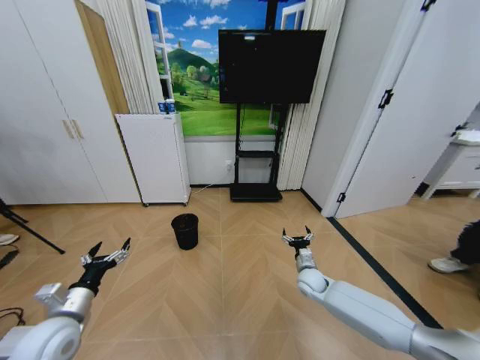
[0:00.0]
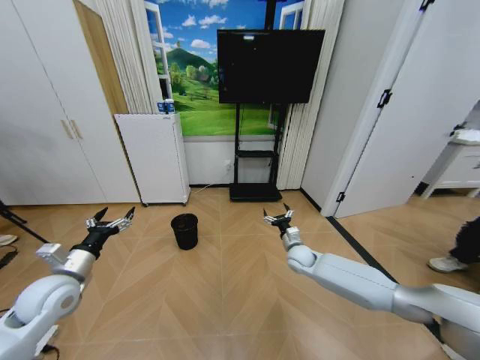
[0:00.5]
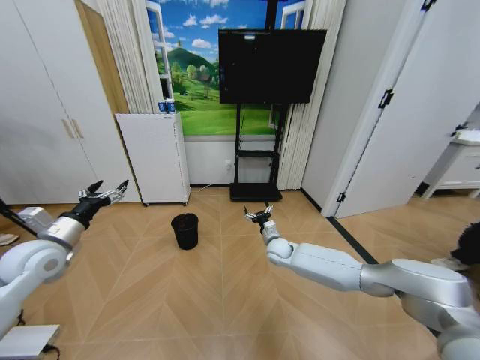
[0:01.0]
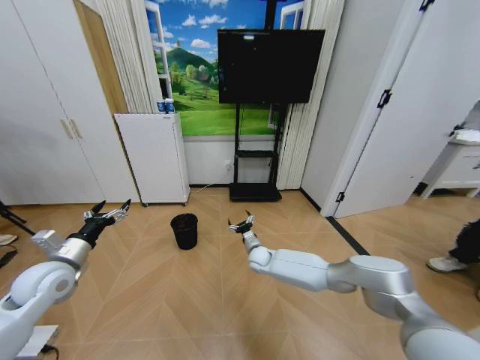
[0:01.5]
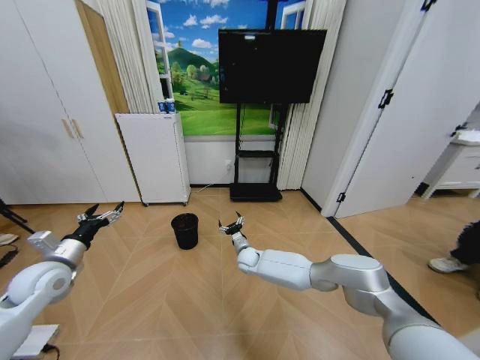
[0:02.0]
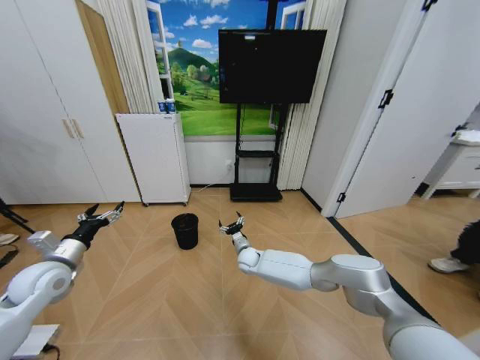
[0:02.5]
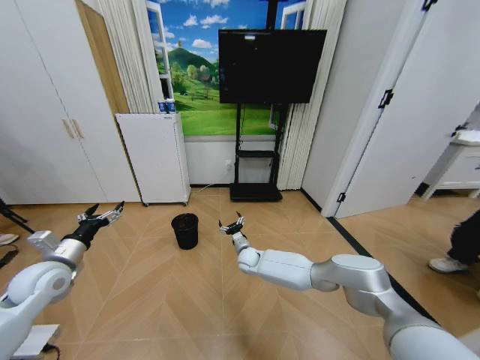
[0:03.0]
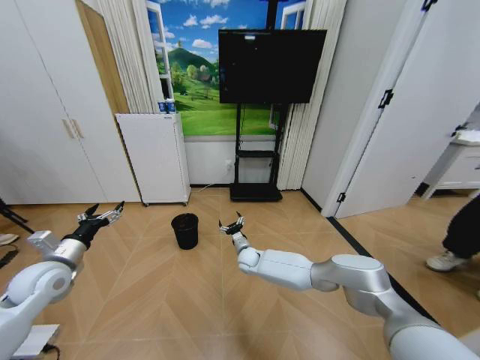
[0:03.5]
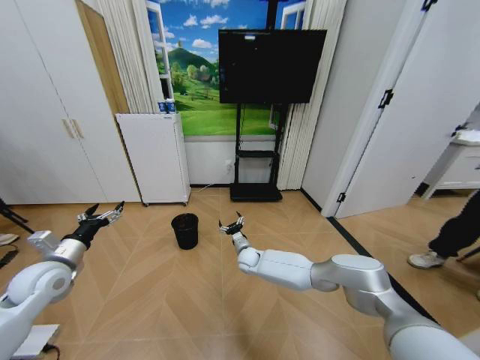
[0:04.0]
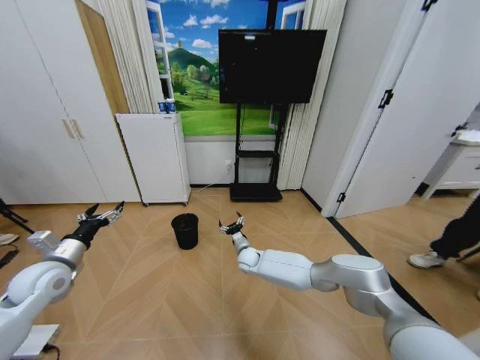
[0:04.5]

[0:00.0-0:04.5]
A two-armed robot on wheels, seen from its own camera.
Task of the whole recording: Pick up the trash bin and place the garbage on the floor into it.
0:00.0 to 0:02.0: The left gripper heads forward, upward and to the left, covering approximately 15 cm; the right gripper shifts roughly 25 cm to the left and forward.
0:02.0 to 0:04.5: The two grippers keep their place.

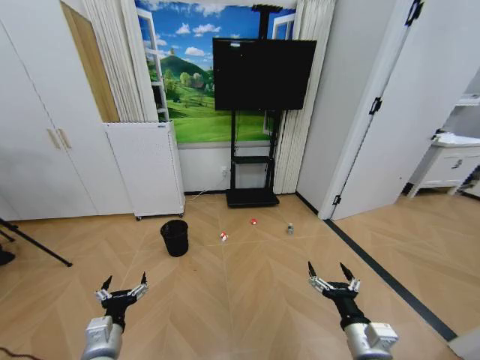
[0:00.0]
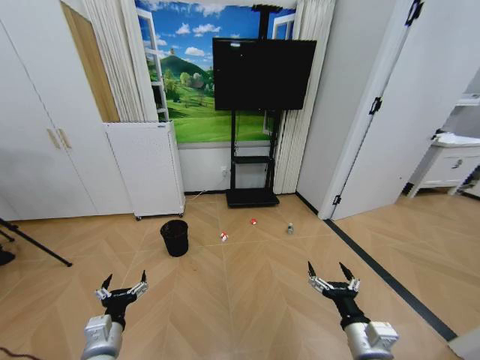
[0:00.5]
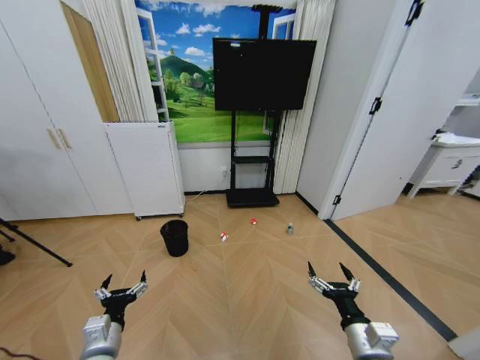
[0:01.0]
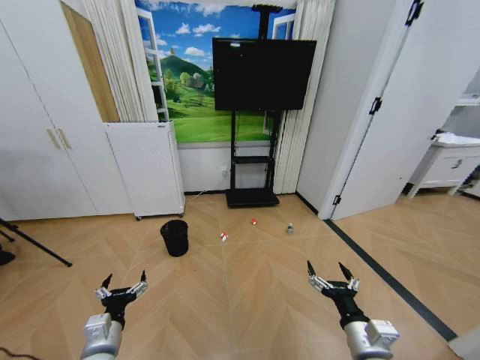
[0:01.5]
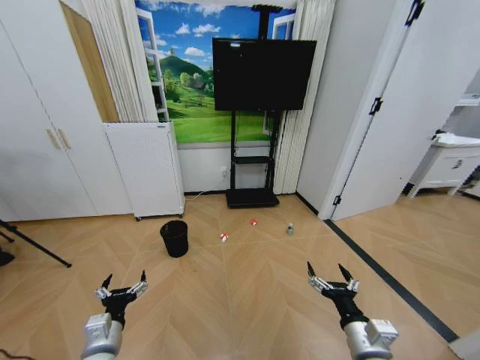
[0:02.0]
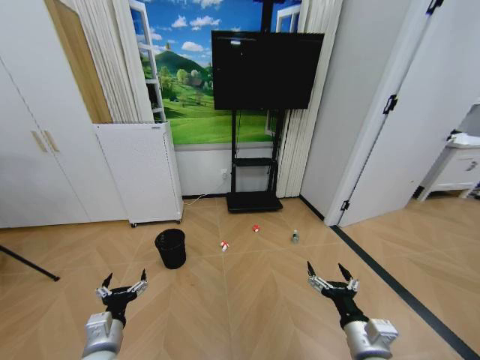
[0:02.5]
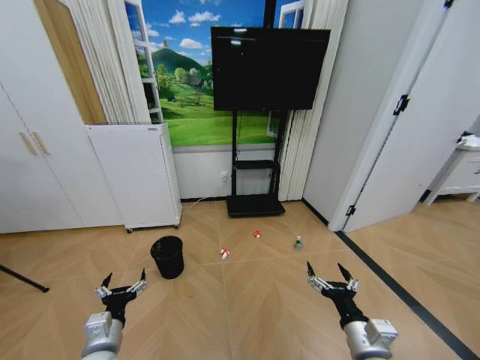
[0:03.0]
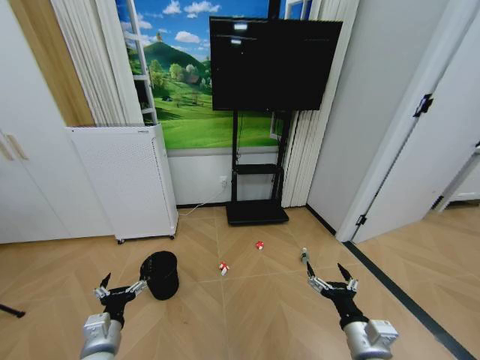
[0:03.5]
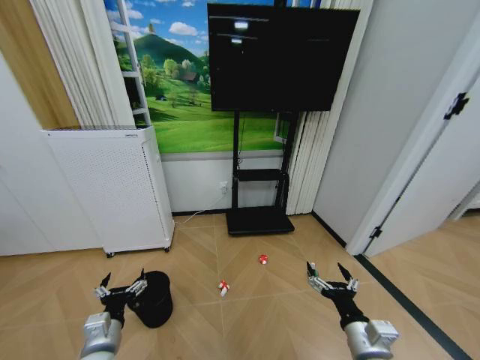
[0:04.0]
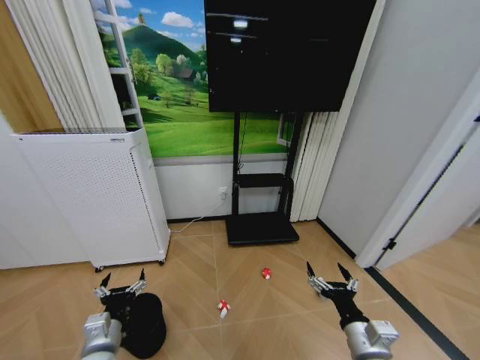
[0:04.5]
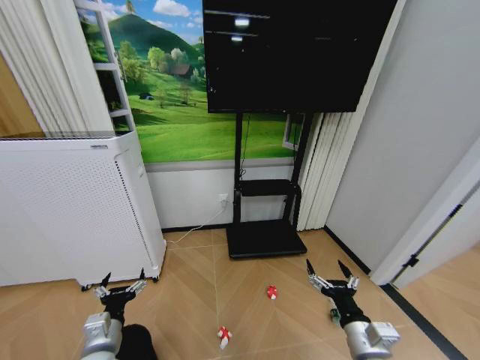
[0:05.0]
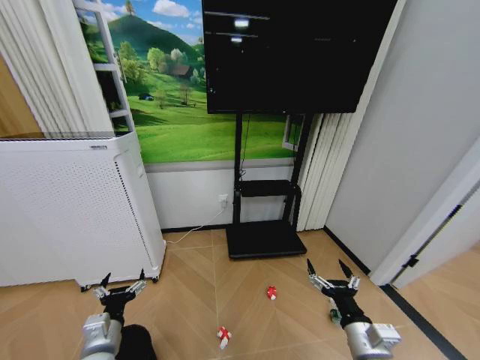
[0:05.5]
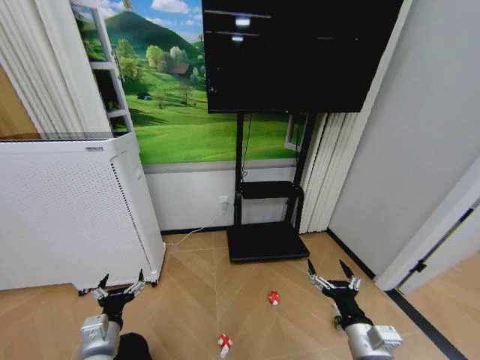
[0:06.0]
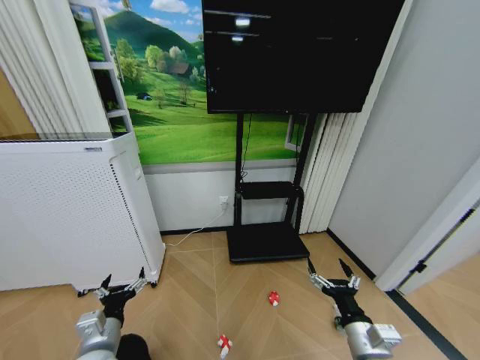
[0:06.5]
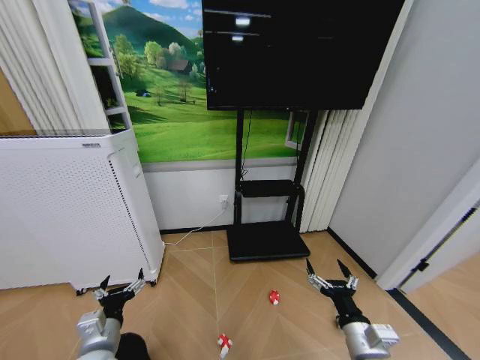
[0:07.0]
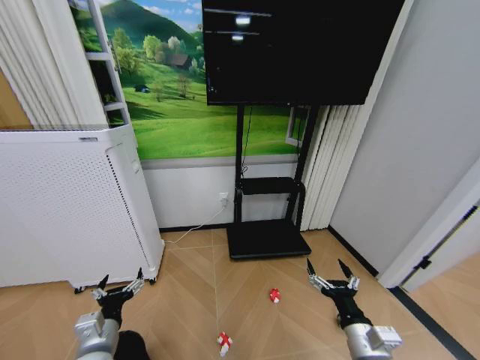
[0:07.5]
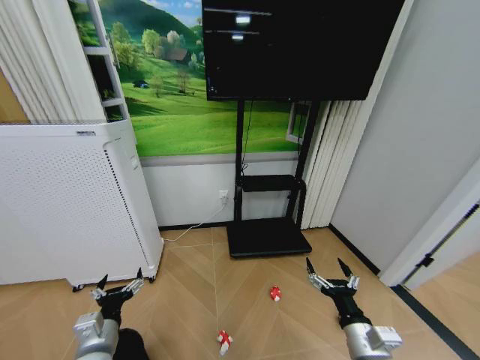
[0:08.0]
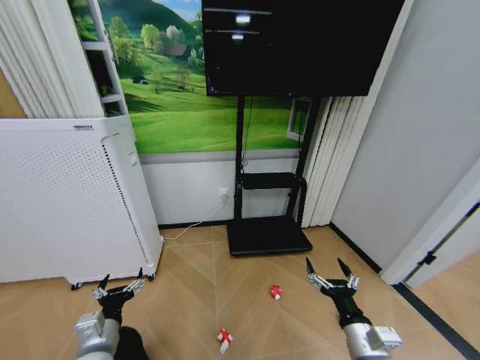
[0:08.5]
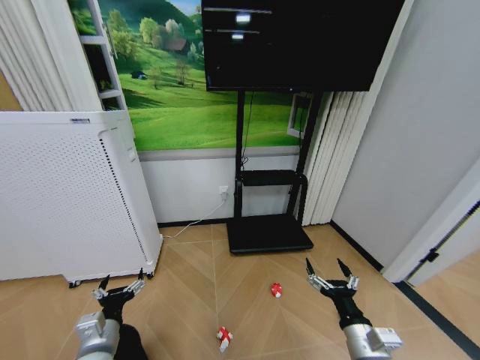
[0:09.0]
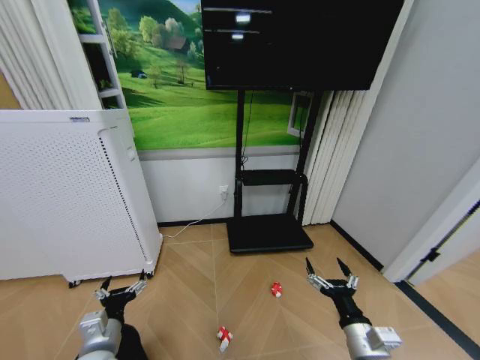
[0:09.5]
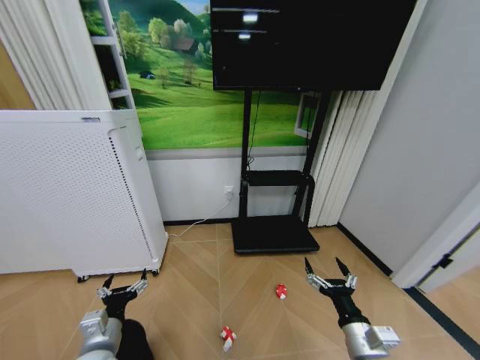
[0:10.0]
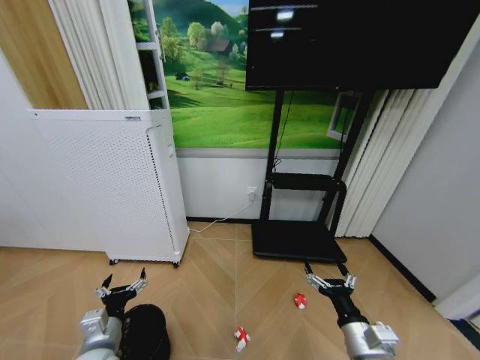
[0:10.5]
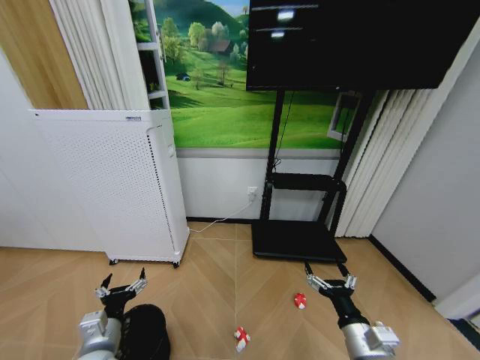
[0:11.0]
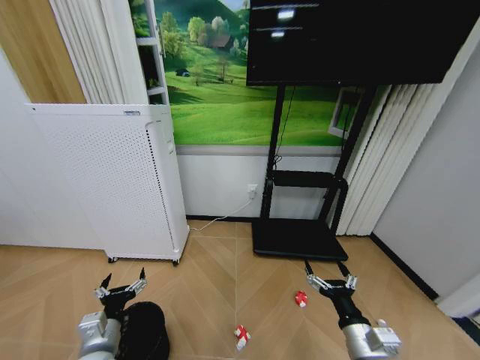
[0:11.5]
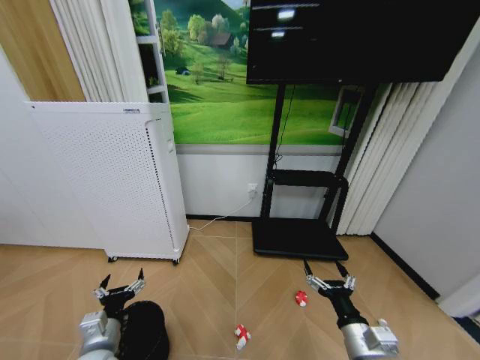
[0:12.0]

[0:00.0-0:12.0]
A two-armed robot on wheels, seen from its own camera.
Task of the whole recording: Pick up the trash bin and place the garbage on the floor into it.
0:06.0 to 0:08.0: The grippers stay close to where they were, moving slightly.

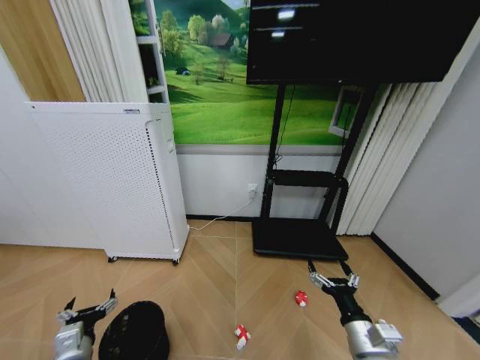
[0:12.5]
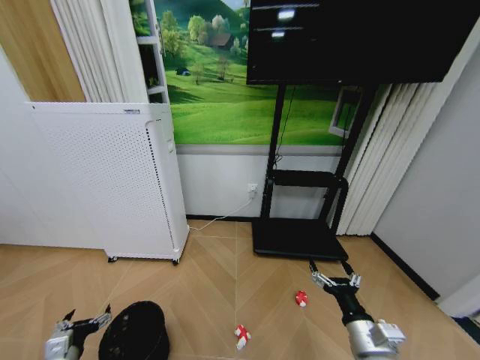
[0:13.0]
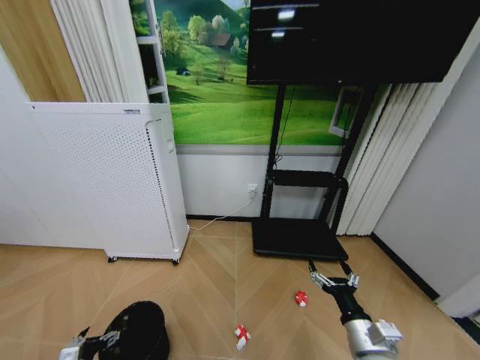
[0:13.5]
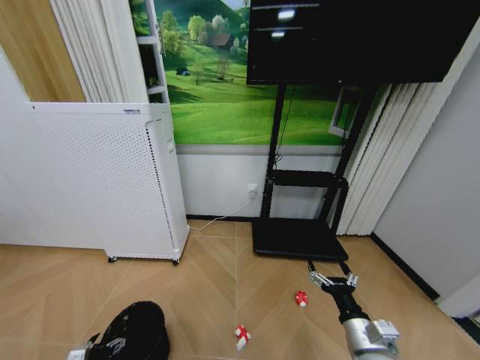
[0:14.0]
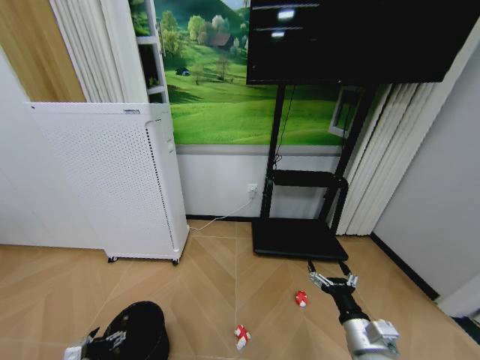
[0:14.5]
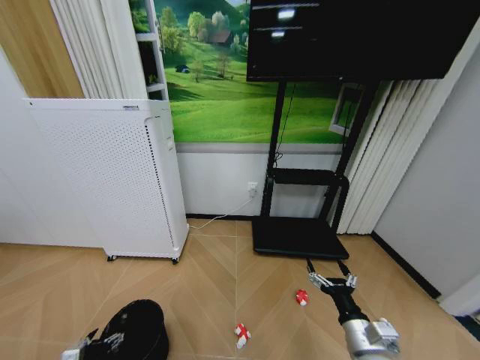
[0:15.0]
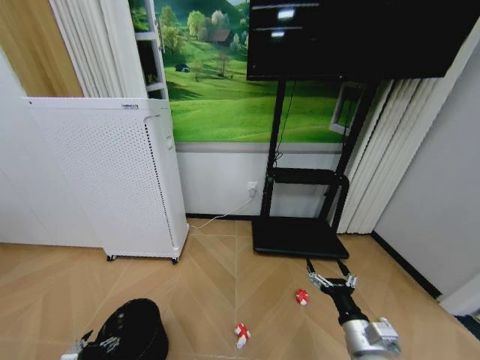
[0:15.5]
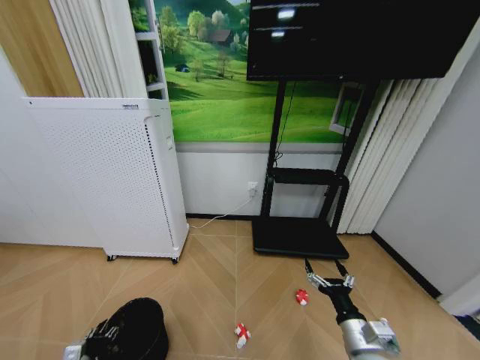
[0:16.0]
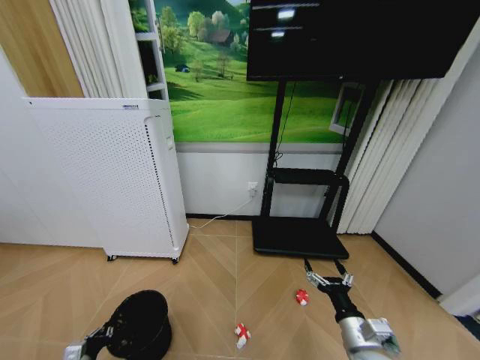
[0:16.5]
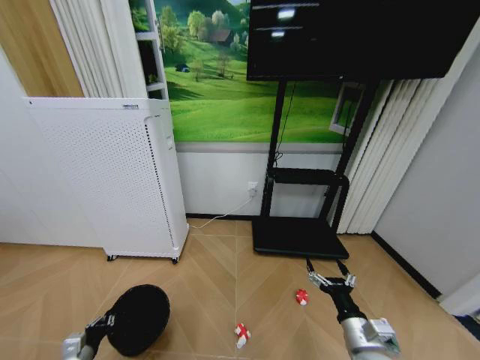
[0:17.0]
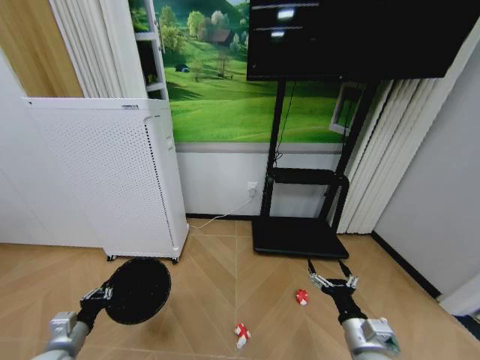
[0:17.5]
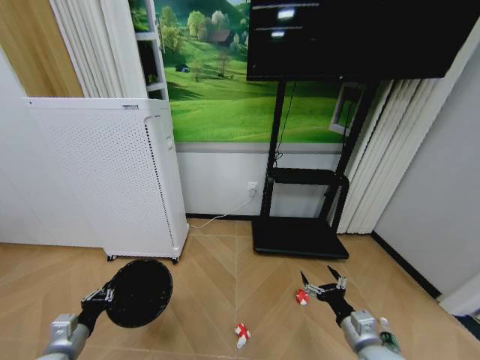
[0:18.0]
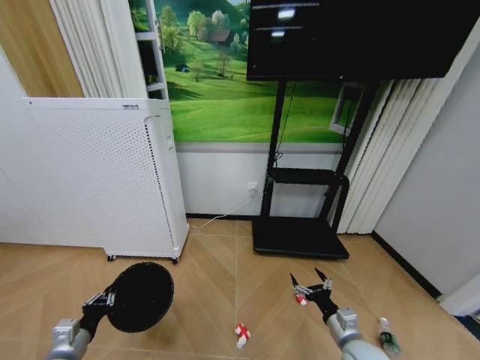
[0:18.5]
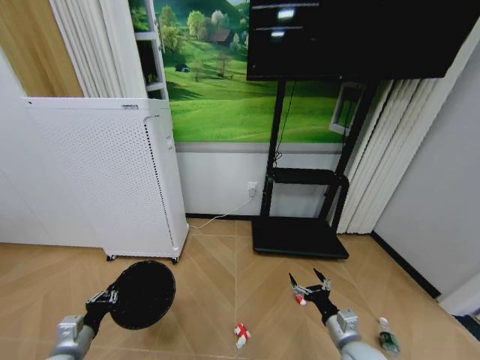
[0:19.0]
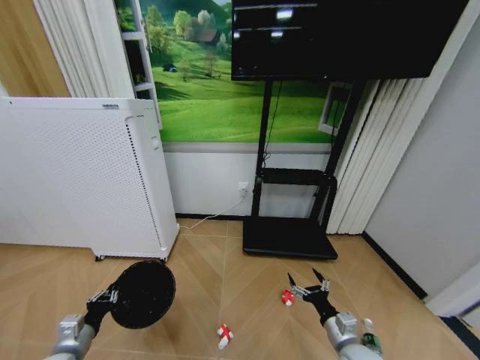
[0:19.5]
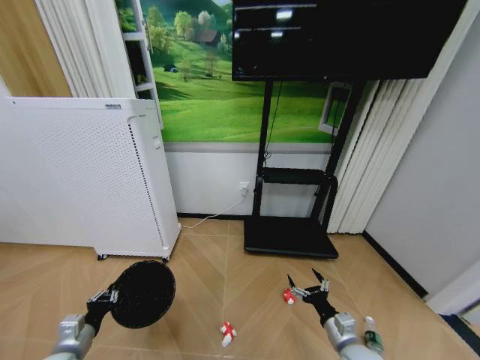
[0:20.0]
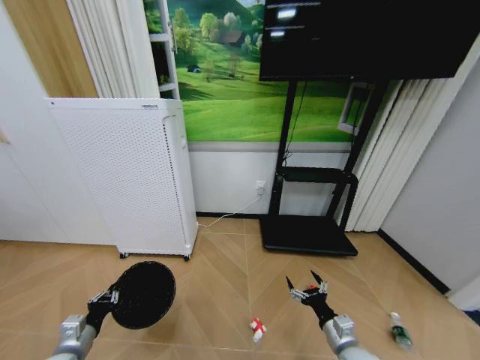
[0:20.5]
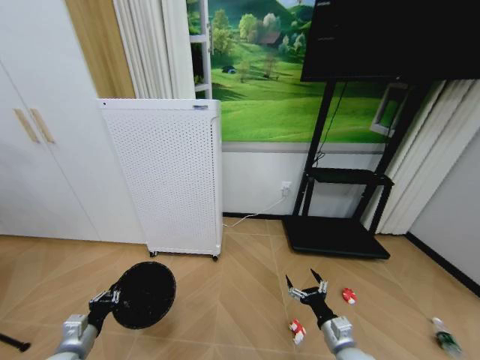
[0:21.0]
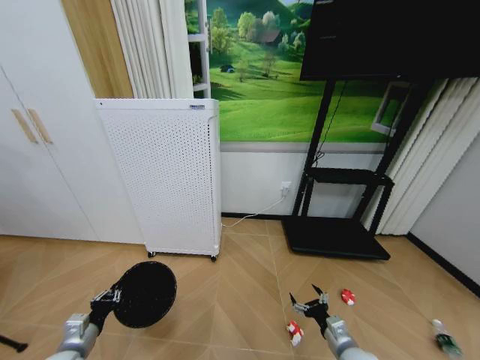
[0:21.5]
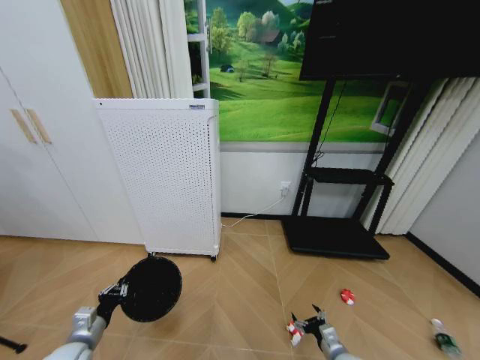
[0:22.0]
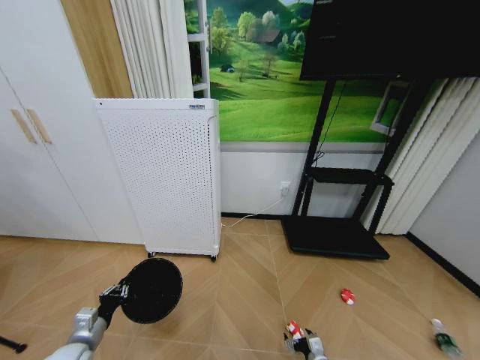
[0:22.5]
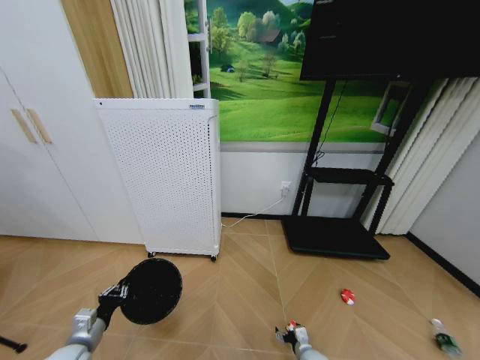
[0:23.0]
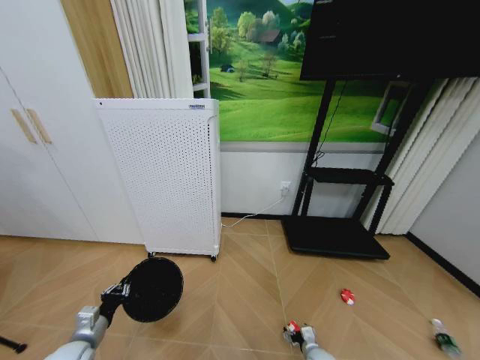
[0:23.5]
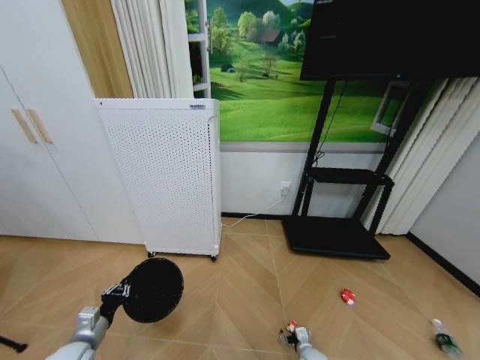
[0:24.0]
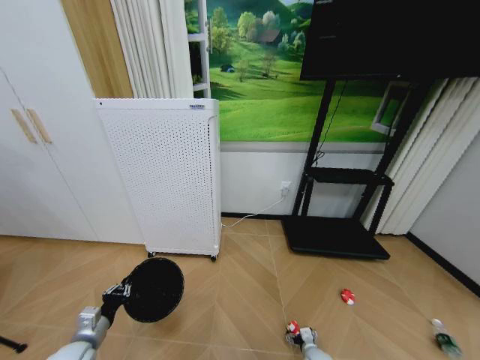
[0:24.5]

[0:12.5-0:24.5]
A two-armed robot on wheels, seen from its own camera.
Task of the whole recording: Pick up the trash bin and place the garbage on the floor into it.
0:12.5 to 0:14.5: The left gripper is displaced downward and to the left by some 15 cm.
0:14.5 to 0:16.5: The left gripper closes its fingers.
0:16.5 to 0:18.5: The left gripper shifts some 10 cm upward, while the right gripper travels downward by roughly 5 cm.
0:20.5 to 0:22.5: The right gripper shifts some 15 cm downward.
